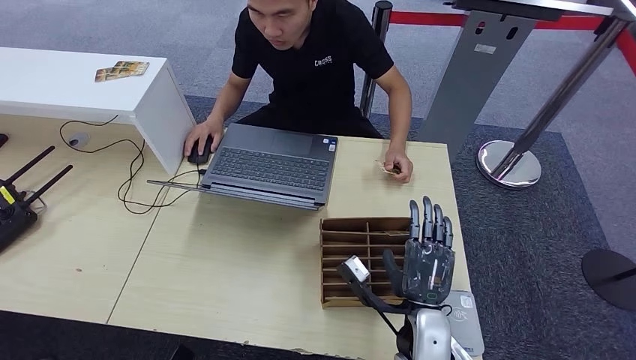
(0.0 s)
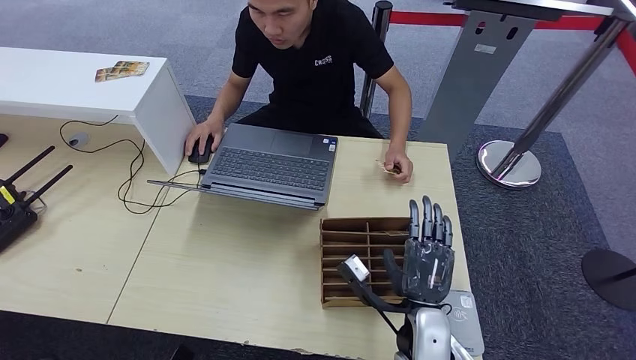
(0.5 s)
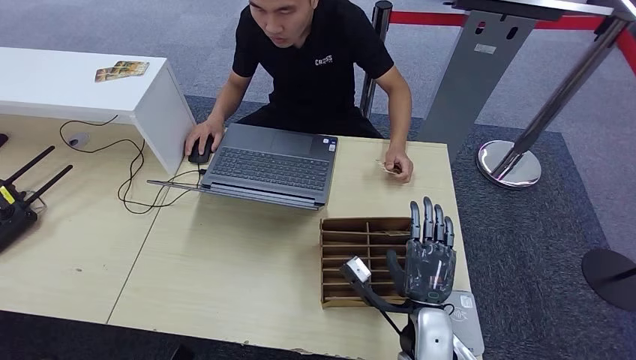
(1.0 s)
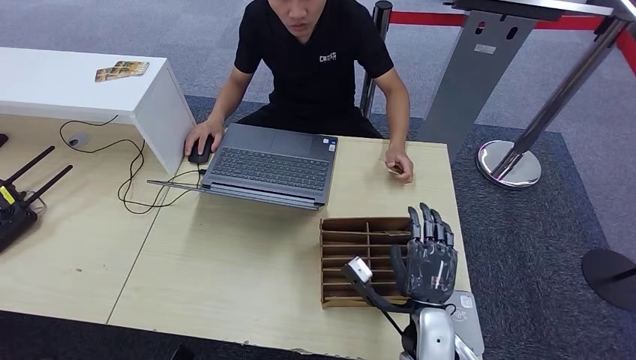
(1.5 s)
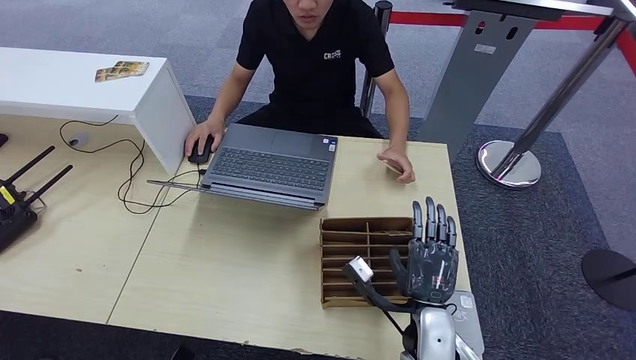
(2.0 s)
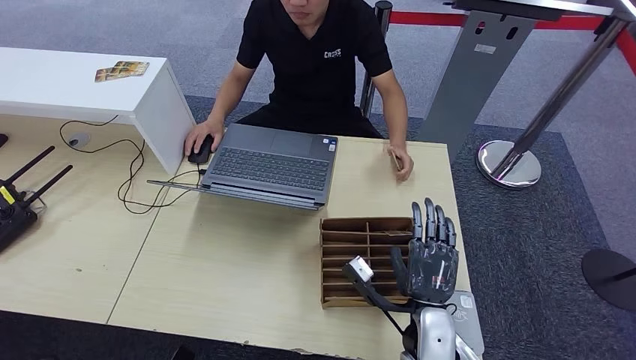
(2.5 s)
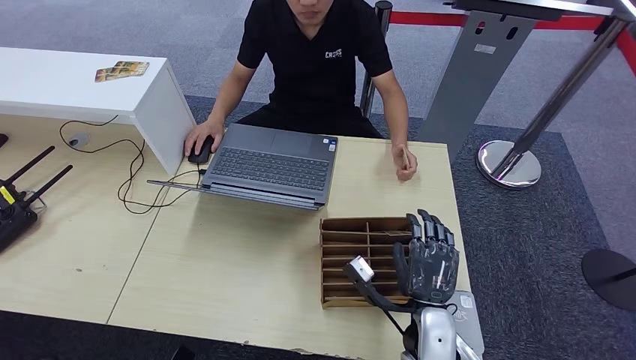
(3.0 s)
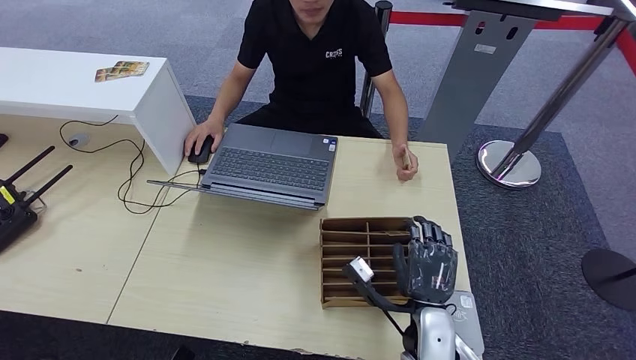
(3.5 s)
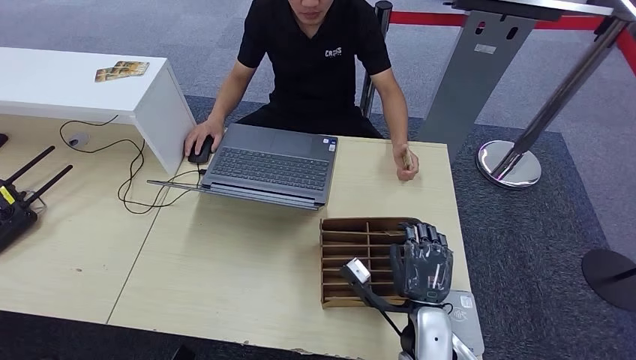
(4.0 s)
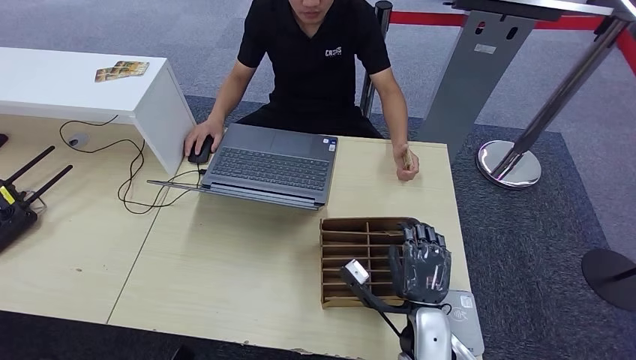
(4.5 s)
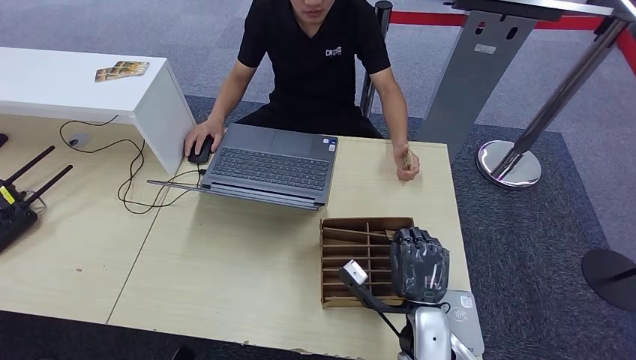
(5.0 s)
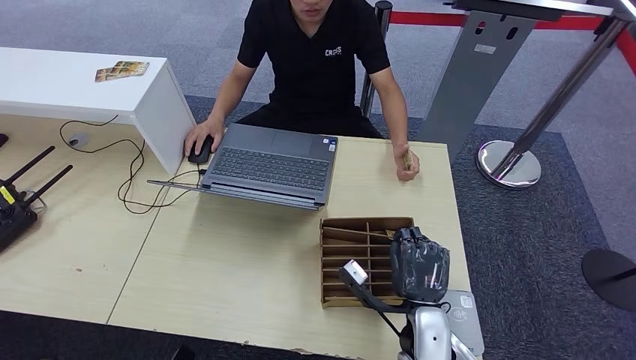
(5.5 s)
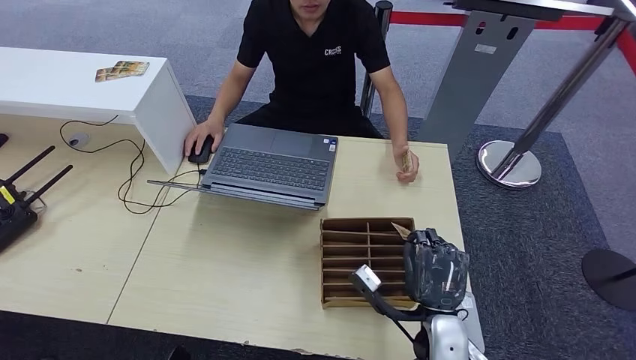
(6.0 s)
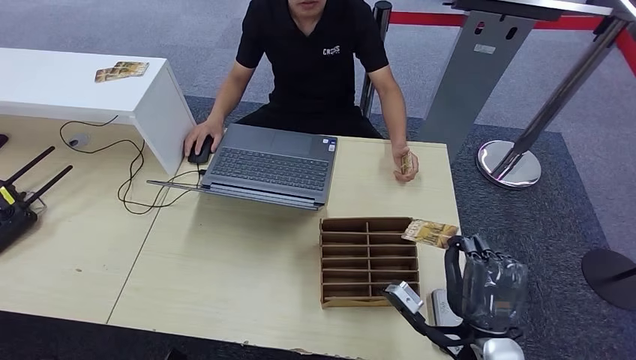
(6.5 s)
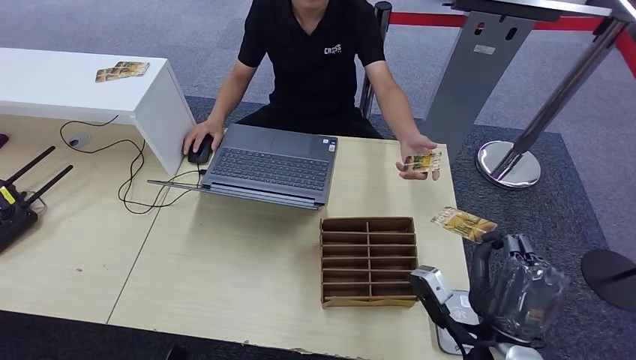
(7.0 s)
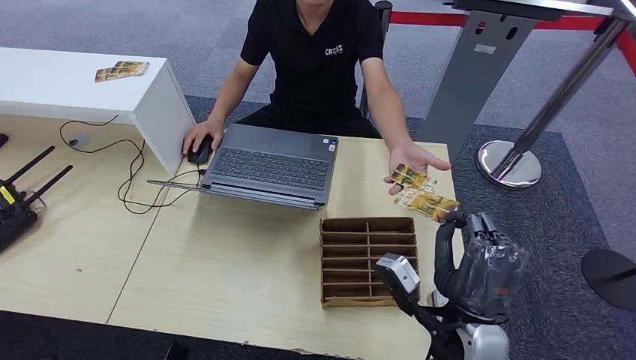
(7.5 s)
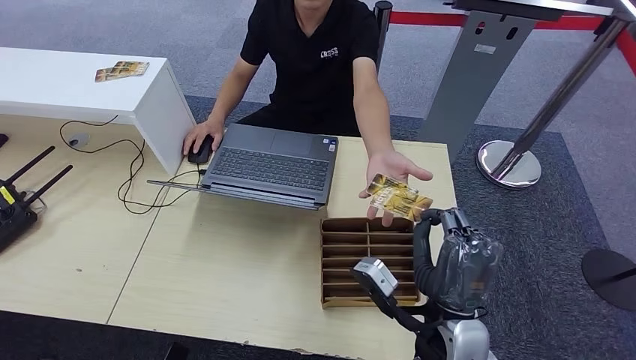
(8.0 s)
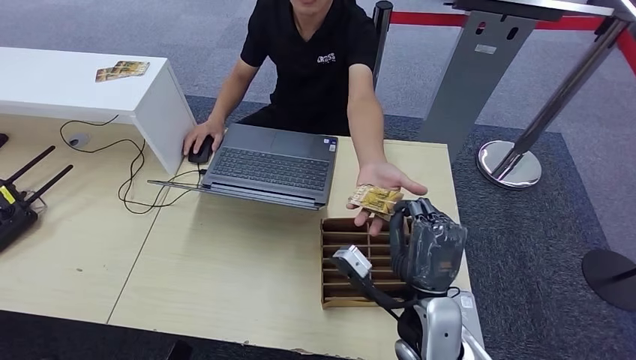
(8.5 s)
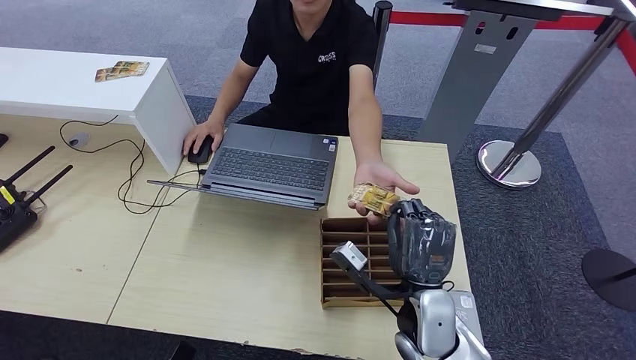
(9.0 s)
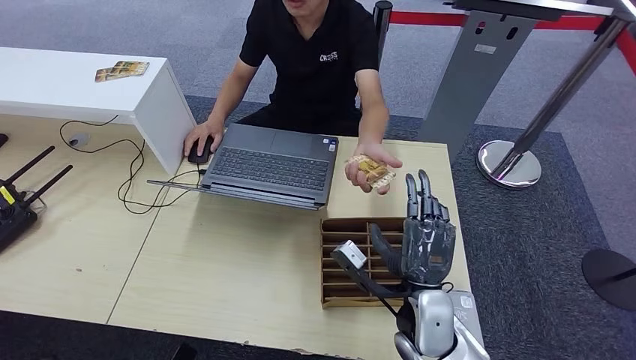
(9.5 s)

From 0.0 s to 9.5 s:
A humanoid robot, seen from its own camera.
Step, from 0.0 s to 6.0 s: Pick up the room key from the key card box.
Step, from 6.5 s to 9.5 s: Hand the room key to the person.
From 0.0 s to 2.0 s: Neither hand changes place.
From 2.0 s to 5.5 s: Neither hand changes place.
From 5.5 s to 7.5 s: The right hand travels upward by about 10 cm.
From 7.5 s to 9.5 s: The right hand heads forward, covering about 5 cm.
